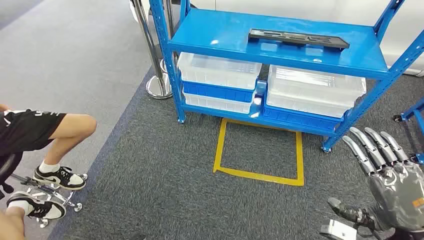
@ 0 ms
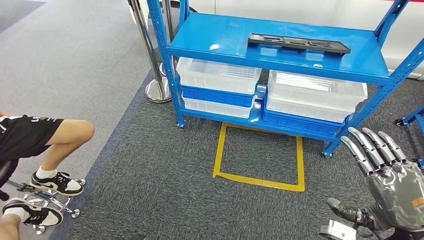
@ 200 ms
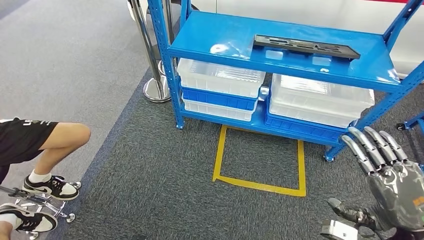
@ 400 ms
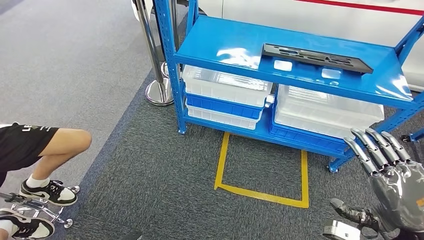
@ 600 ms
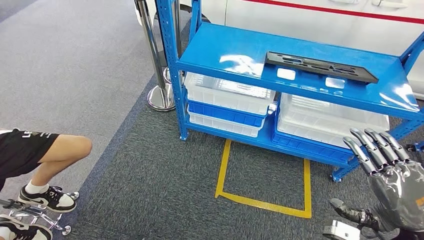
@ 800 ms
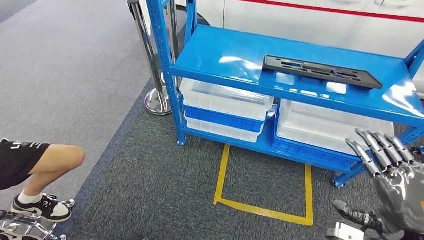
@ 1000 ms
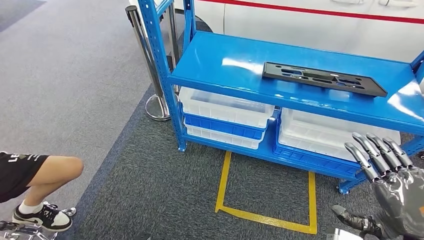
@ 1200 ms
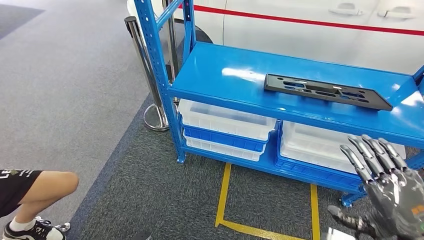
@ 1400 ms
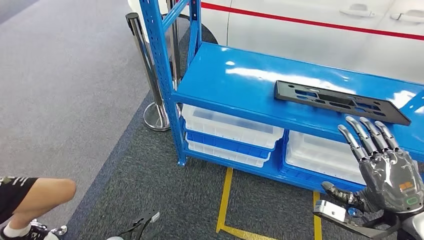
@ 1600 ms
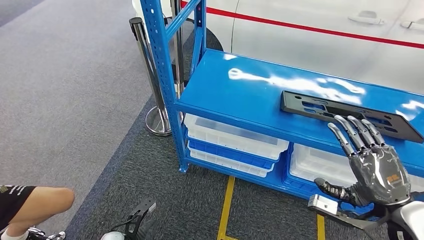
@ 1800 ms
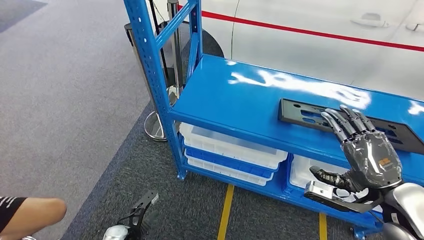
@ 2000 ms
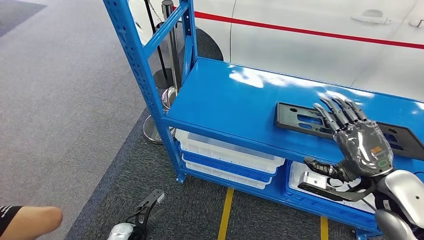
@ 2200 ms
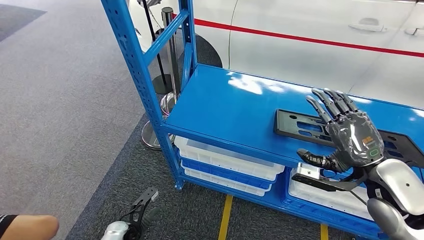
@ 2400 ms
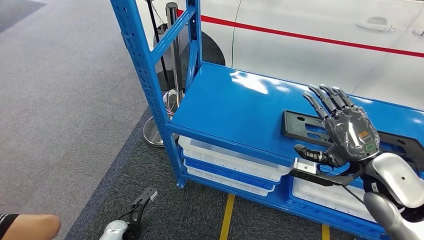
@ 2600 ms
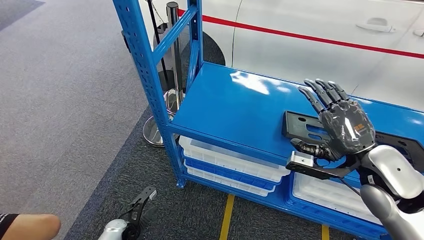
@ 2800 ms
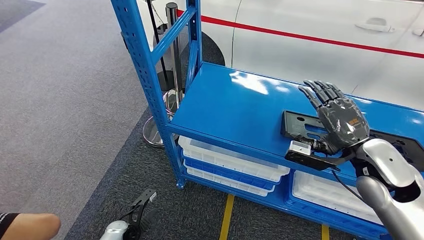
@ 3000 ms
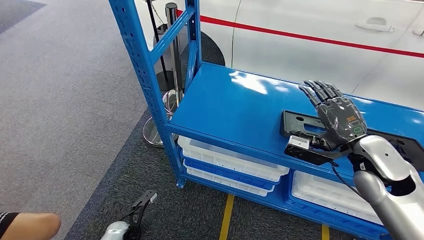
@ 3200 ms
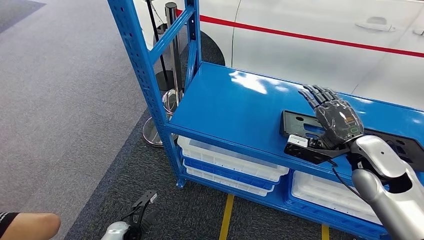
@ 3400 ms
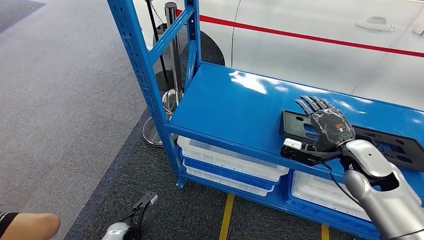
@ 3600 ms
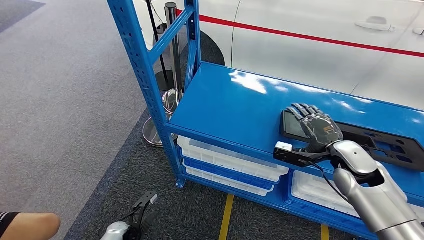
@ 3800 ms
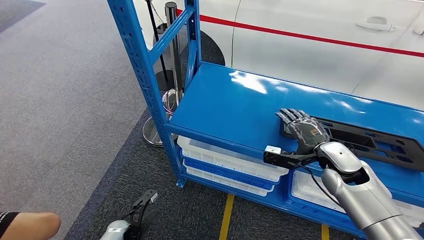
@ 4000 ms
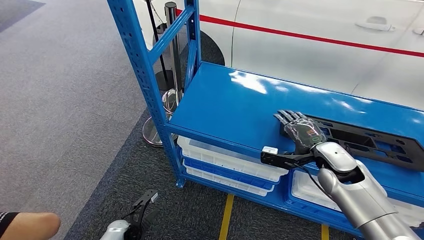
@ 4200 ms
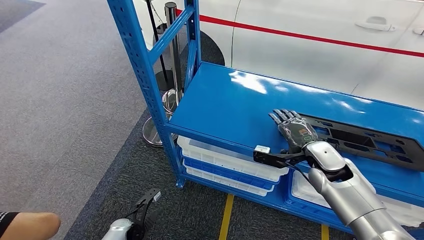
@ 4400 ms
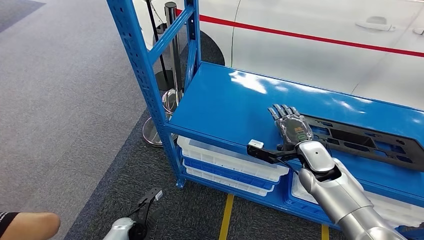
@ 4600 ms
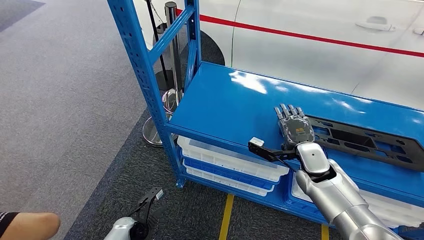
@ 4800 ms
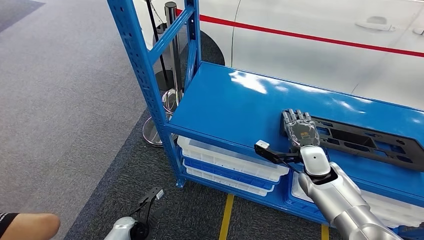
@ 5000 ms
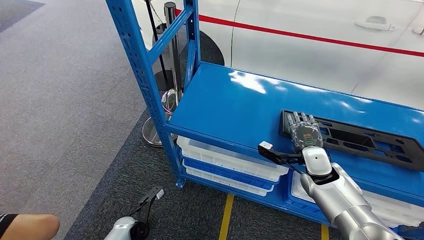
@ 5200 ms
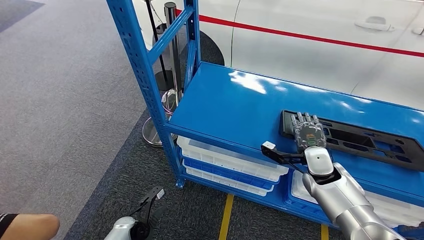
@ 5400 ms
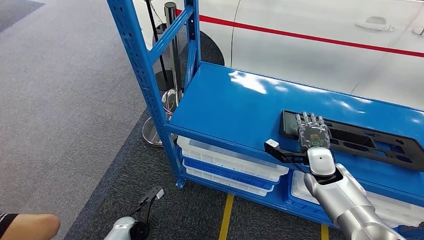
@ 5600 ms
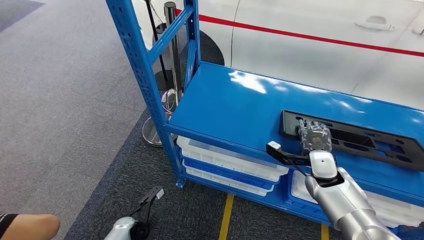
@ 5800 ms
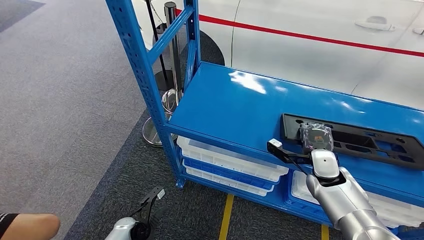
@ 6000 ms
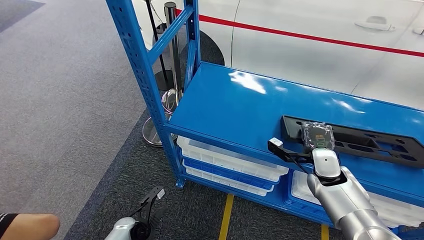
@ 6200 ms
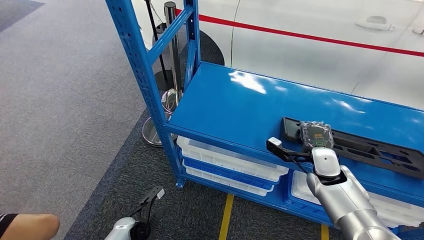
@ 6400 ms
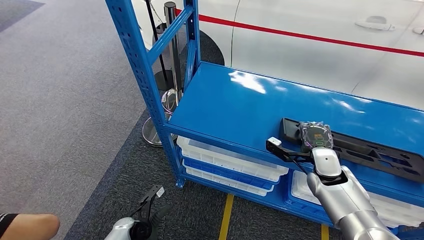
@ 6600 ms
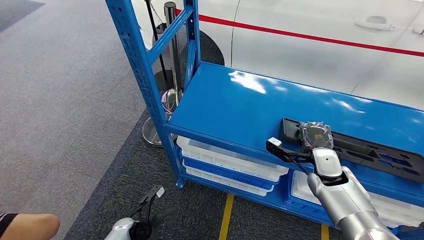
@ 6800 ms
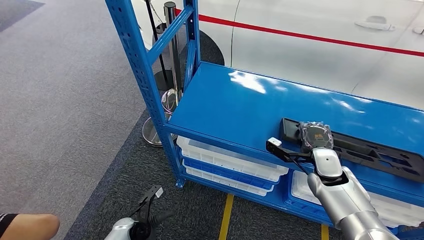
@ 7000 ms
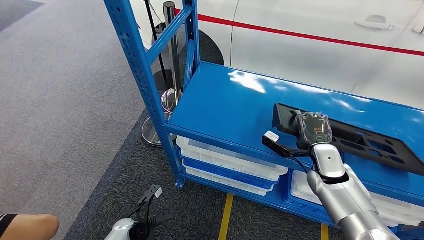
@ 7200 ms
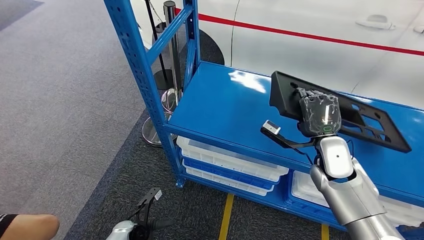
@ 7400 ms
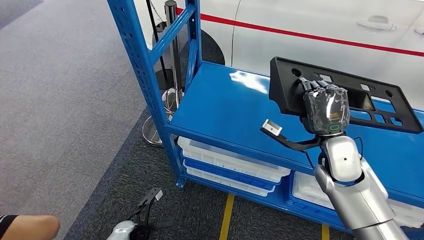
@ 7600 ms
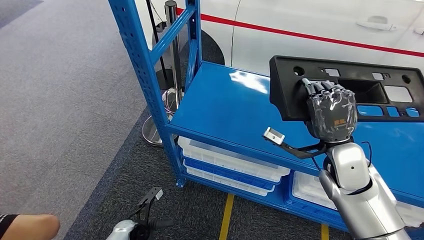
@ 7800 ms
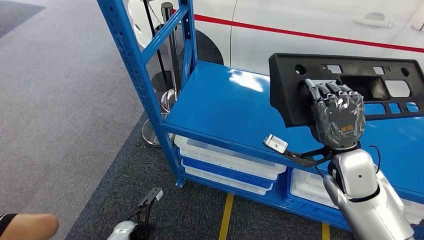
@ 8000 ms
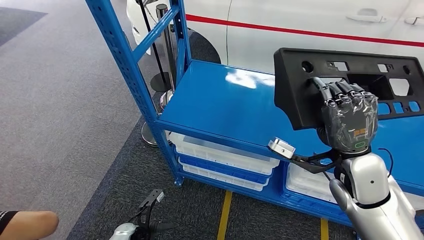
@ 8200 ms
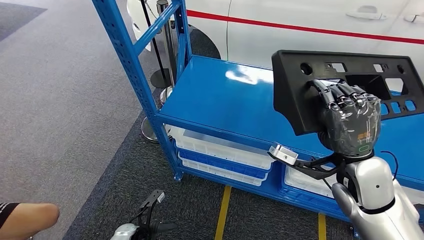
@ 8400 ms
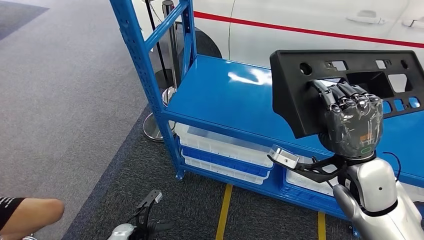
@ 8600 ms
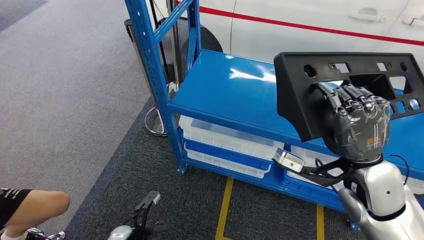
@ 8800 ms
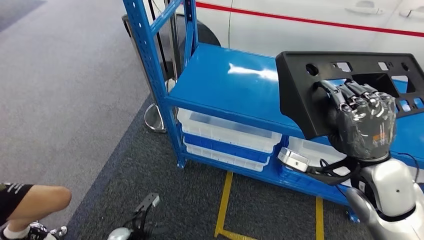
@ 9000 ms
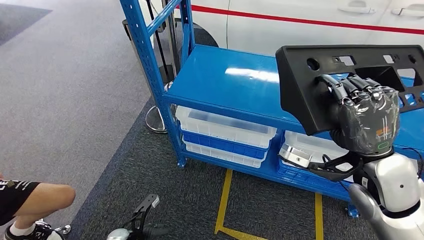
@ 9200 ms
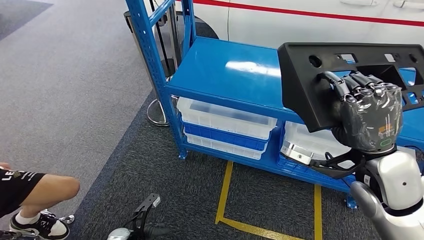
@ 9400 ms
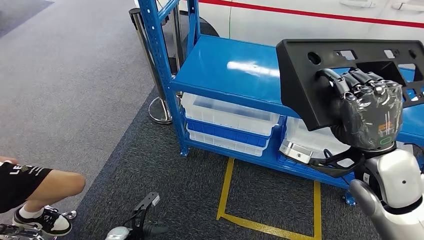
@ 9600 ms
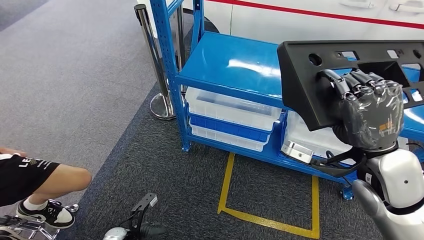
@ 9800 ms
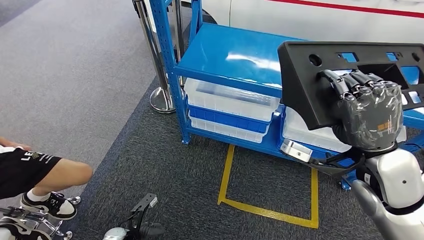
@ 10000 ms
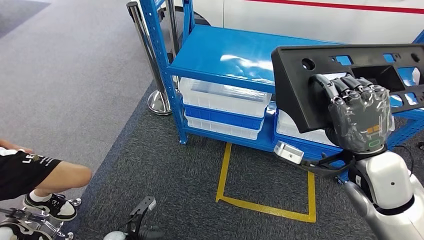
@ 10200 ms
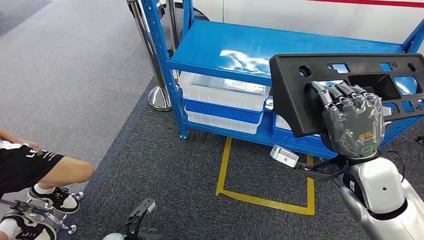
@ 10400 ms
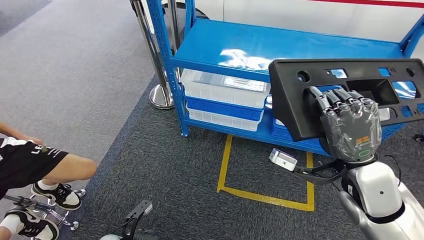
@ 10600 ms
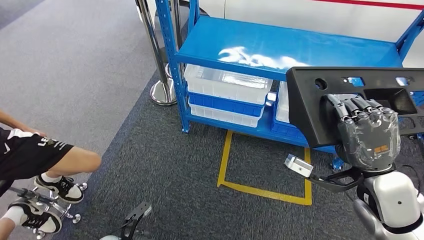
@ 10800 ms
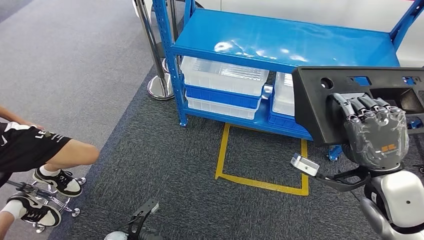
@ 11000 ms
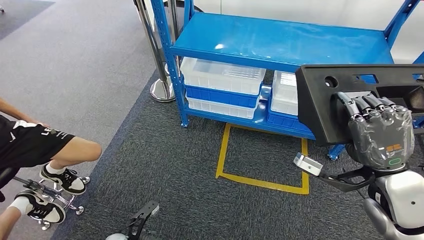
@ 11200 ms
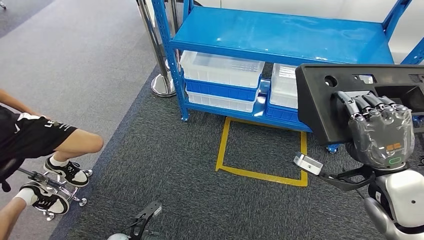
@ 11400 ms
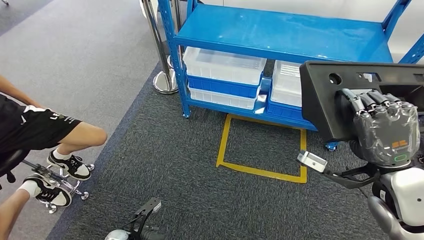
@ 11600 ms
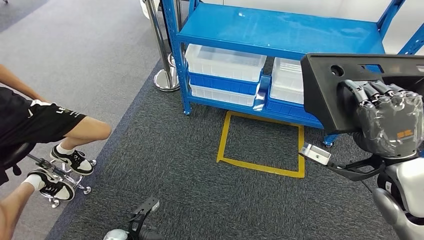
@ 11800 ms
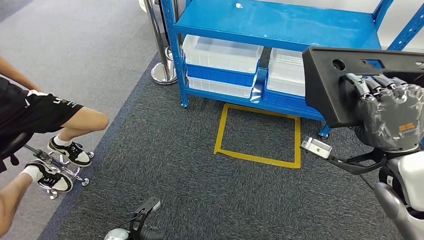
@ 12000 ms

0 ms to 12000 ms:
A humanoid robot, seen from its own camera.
Step, 0 ms to 9400 ms: Pick up the large material from the shelf.
3000 ms to 4400 ms: The right hand shifts roughly 10 cm downward and to the left.
4400 ms to 6000 ms: The right hand changes place by some 5 cm.
6000 ms to 7600 ms: The right hand moves upward, about 10 cm.

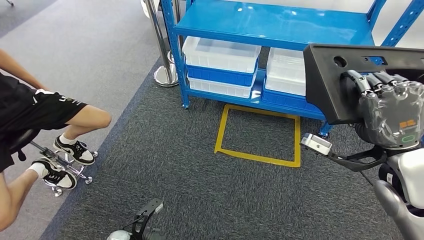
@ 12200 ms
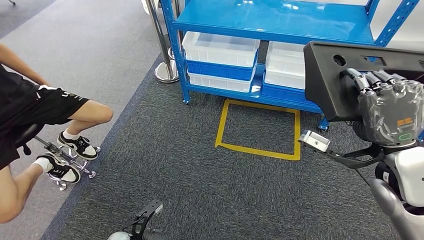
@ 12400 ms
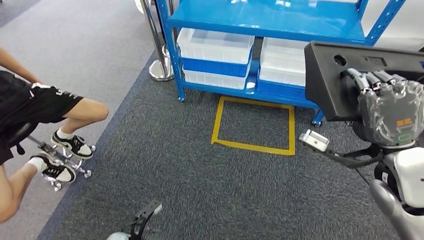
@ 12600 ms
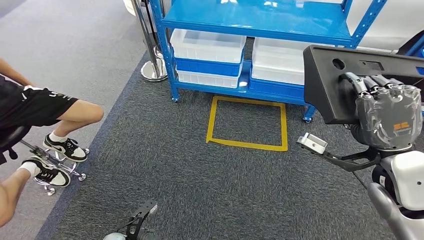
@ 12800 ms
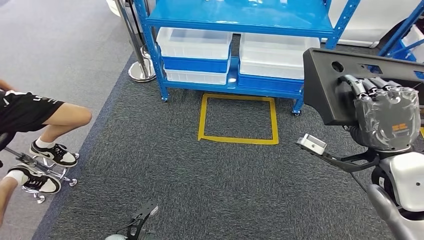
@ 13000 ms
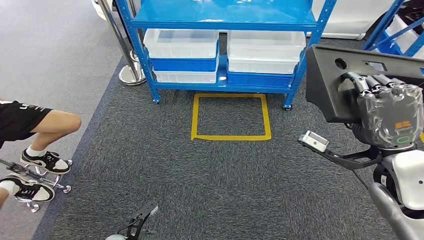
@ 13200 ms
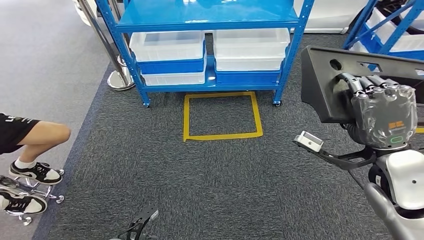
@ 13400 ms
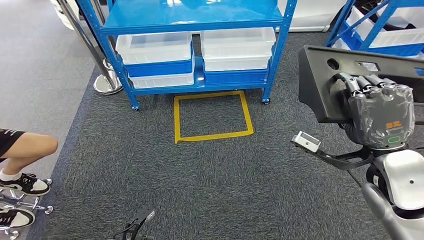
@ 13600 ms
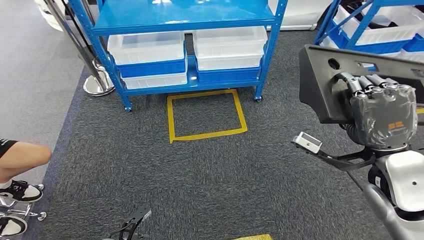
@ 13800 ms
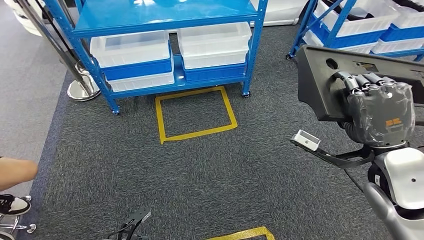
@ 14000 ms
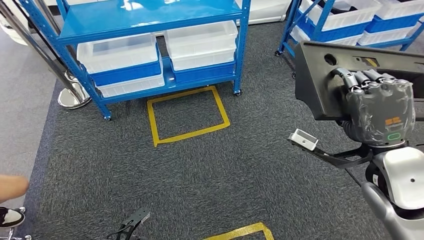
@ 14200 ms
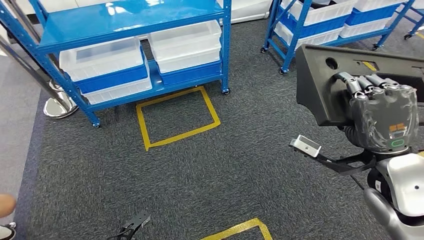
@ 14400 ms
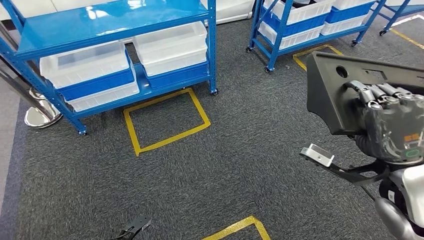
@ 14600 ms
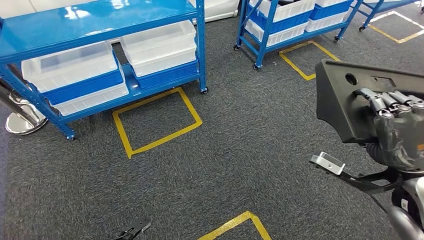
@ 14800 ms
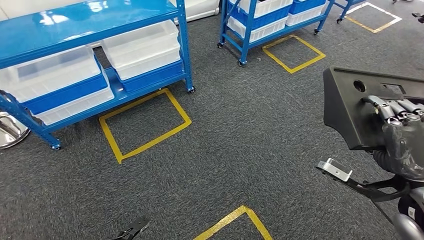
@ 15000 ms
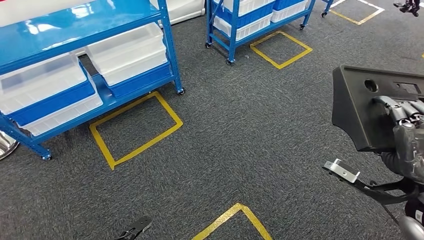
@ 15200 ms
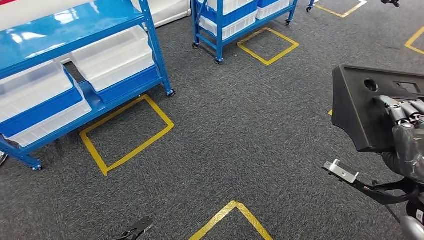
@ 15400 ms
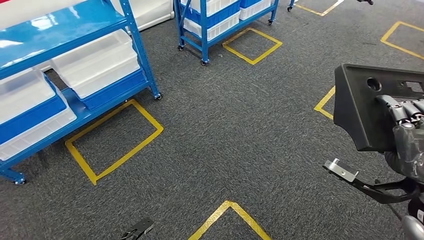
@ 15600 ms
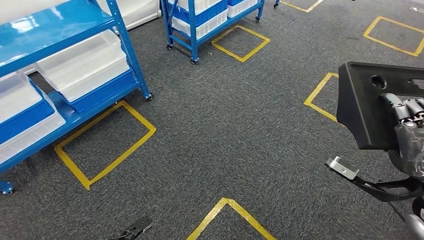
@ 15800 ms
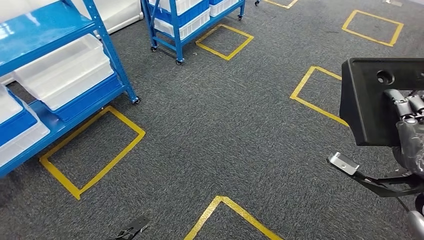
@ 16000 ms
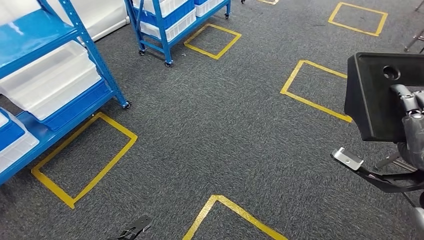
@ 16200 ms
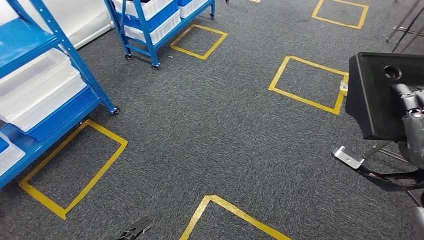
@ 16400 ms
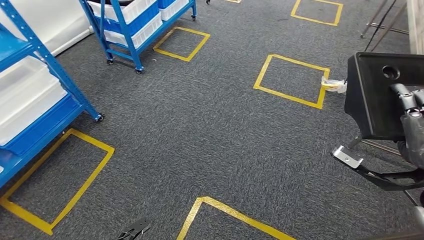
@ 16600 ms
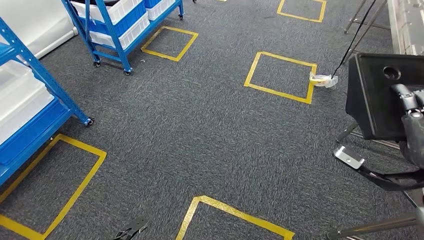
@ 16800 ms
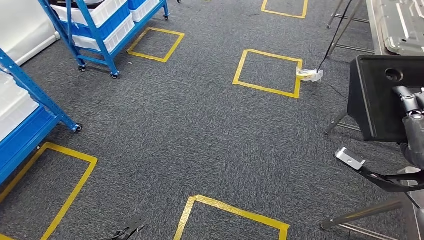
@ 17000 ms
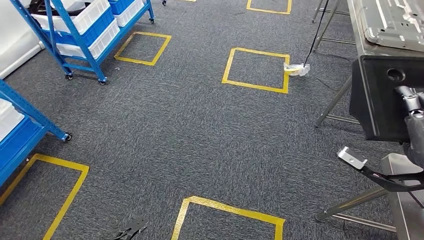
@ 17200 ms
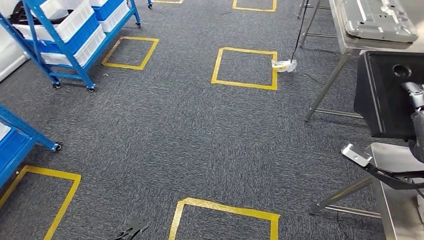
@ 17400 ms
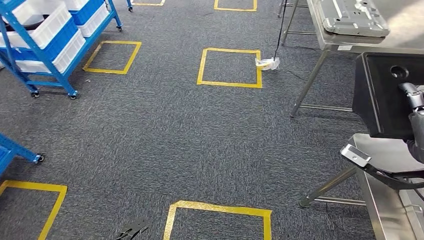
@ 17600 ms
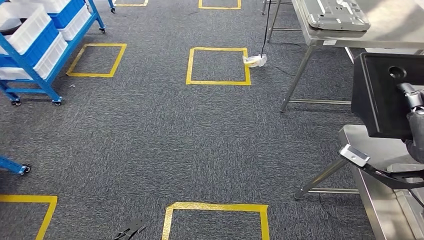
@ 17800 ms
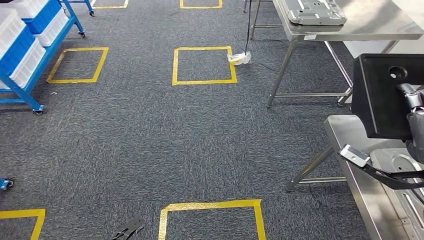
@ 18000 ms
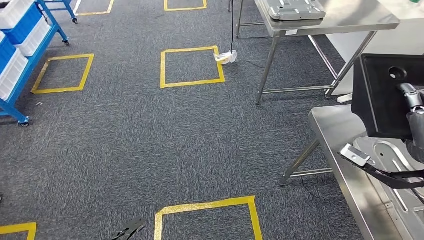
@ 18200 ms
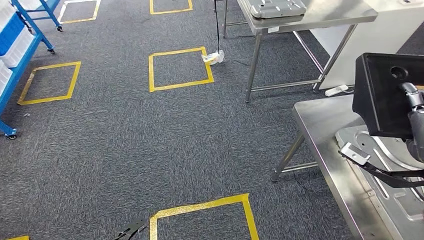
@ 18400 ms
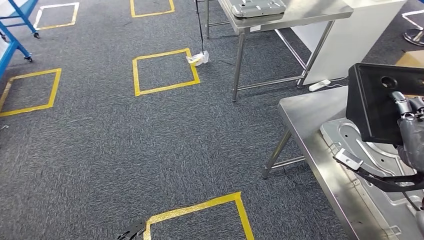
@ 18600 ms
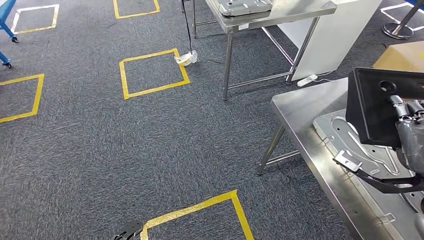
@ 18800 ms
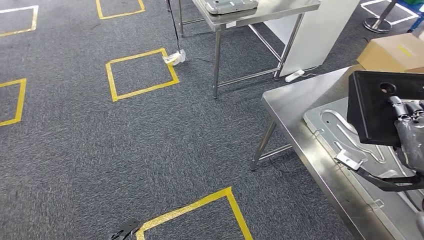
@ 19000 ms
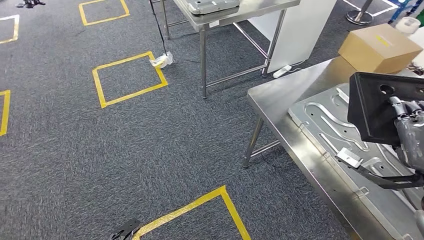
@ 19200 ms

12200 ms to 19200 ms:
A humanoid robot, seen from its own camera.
Step, 12200 ms to 19200 ms: Move the large material to the workbench.
